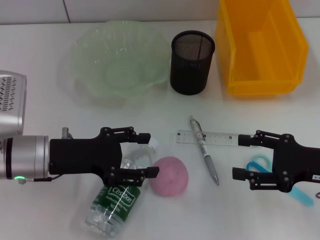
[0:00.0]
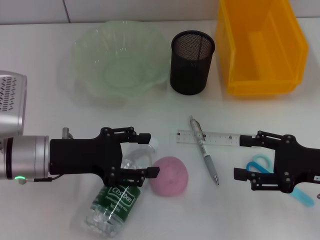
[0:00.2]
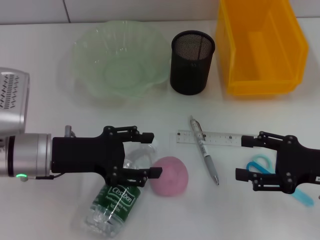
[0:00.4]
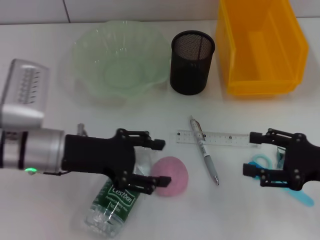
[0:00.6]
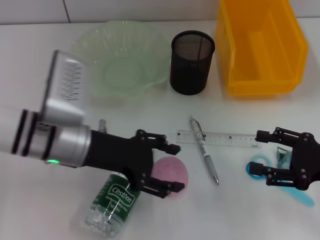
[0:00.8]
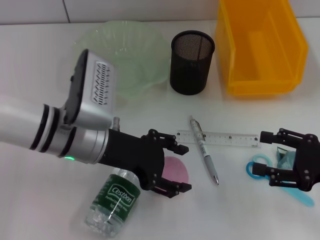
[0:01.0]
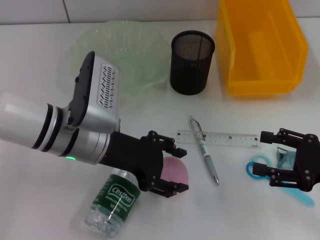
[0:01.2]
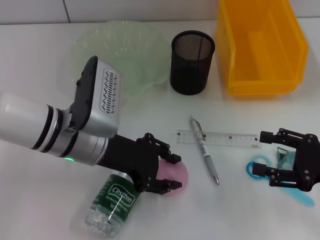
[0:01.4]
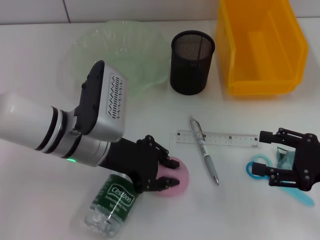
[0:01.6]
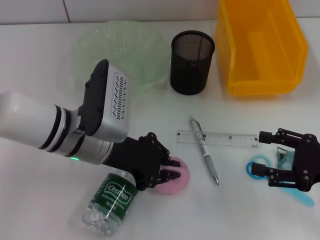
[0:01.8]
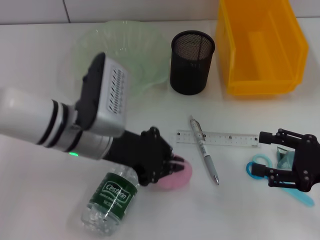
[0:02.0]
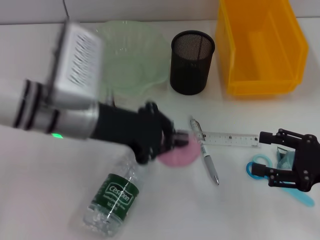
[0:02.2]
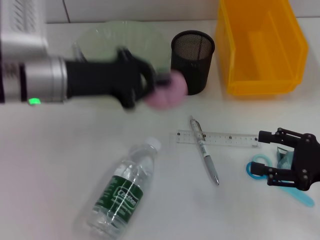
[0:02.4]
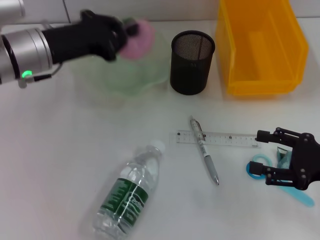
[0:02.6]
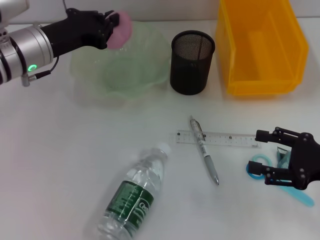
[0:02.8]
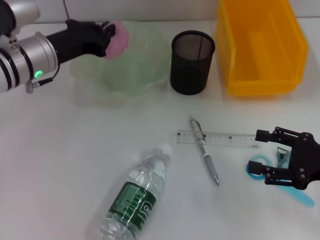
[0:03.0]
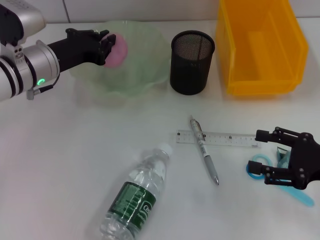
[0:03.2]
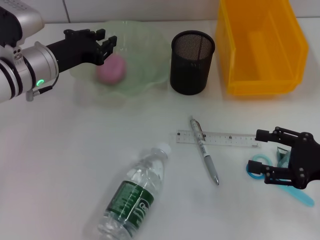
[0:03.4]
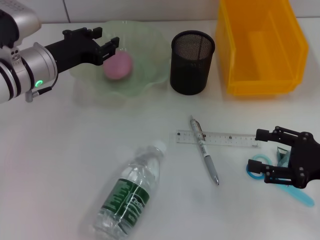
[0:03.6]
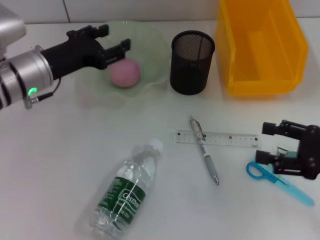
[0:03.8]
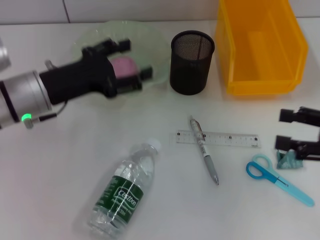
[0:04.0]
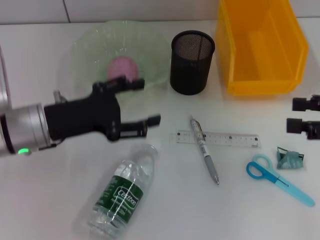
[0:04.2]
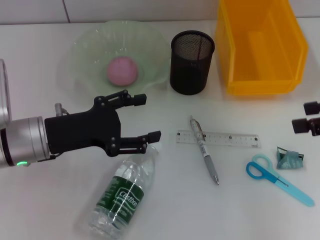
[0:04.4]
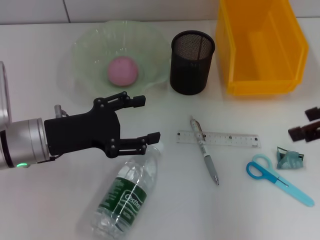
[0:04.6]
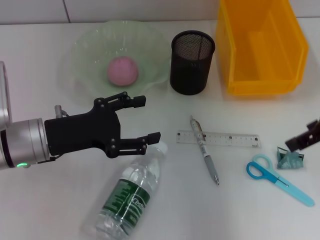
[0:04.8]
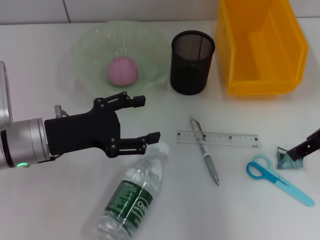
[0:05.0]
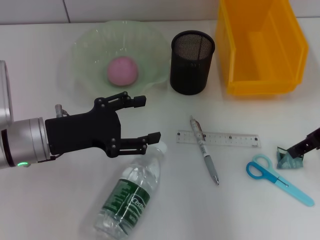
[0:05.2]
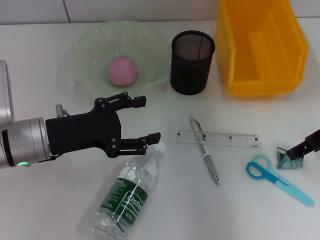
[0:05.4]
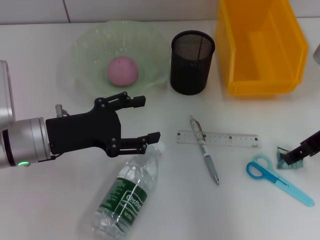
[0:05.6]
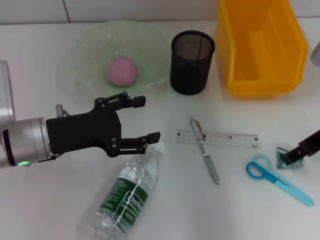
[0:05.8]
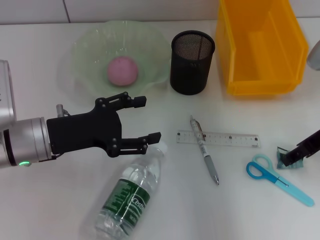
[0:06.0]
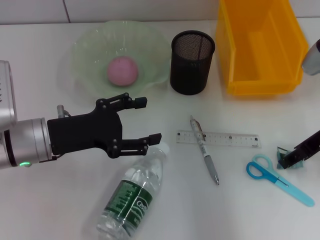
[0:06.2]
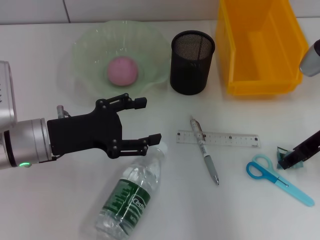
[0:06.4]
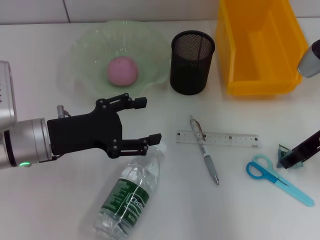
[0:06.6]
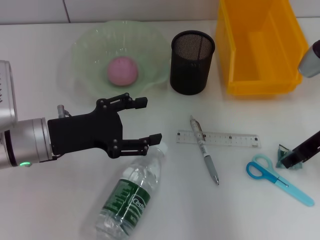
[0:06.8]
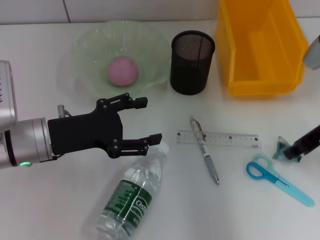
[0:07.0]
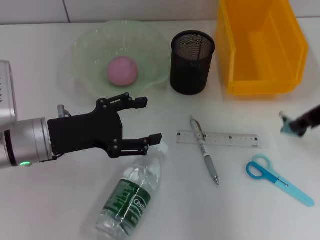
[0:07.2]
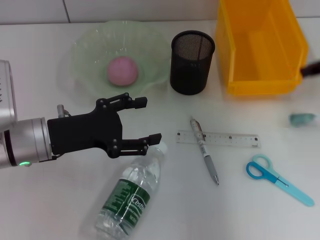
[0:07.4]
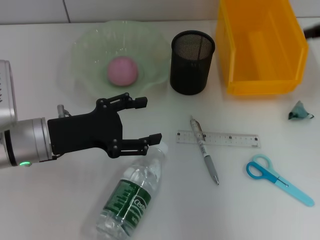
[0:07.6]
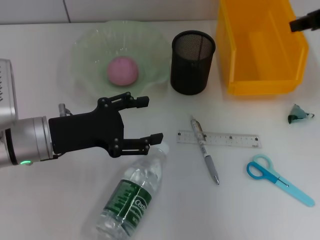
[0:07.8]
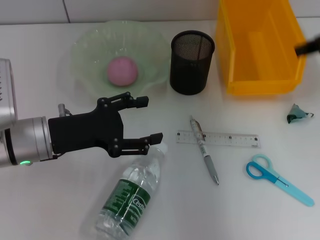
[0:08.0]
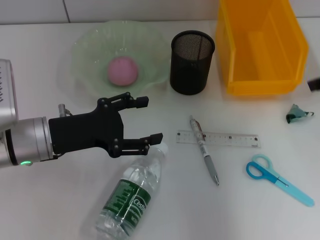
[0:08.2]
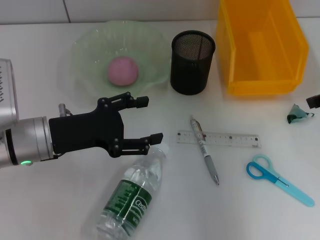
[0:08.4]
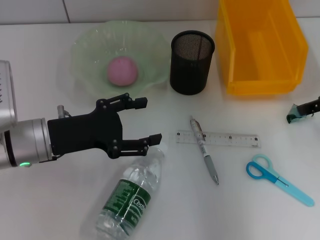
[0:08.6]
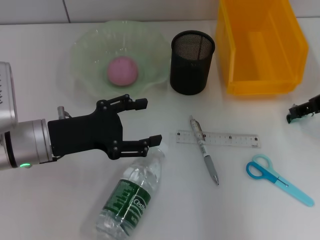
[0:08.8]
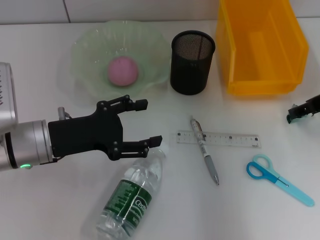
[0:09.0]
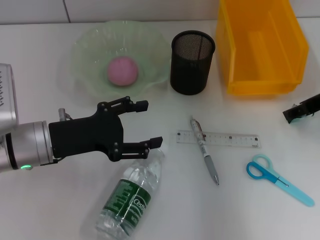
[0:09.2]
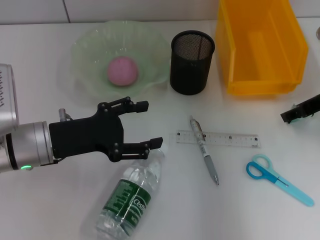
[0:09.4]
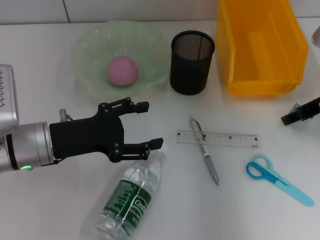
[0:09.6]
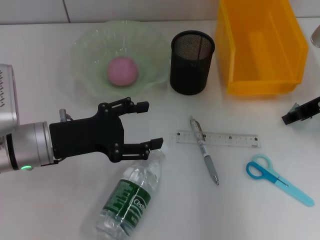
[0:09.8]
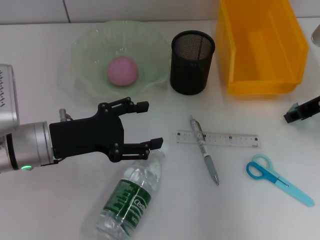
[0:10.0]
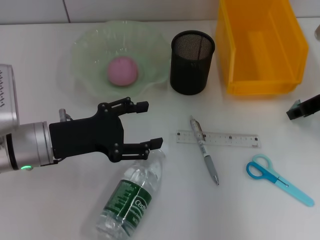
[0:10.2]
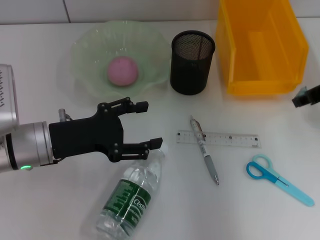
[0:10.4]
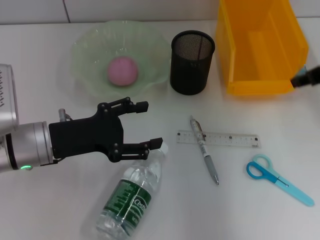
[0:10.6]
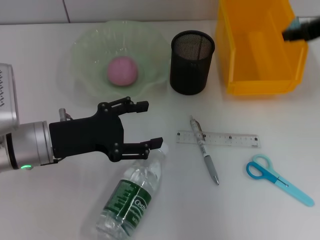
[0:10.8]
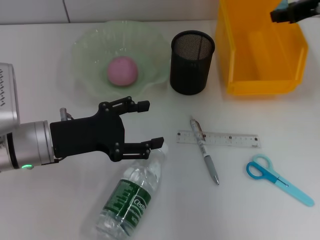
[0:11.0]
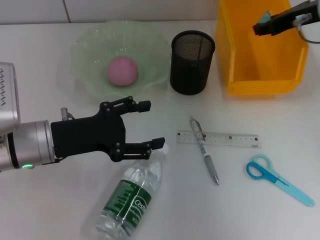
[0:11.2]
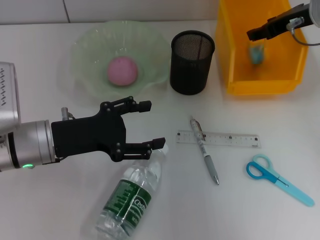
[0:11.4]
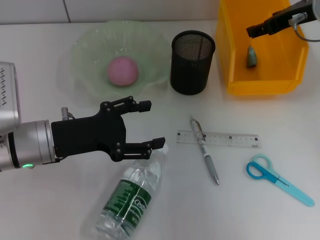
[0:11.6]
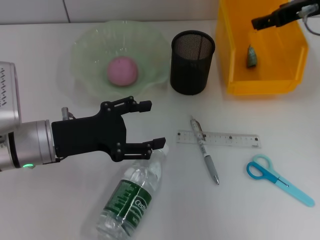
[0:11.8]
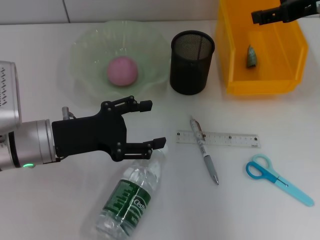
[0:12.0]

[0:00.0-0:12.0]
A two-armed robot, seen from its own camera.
Step, 0:00.0 to 0:01.8: Grab the peach with the left hand.
Step, 0:02.0 to 0:03.4: Place the peach into the fruit bowl with the left hand.
Step, 0:03.6 to 0:10.0: Grab the plastic with the right hand.
Step, 0:10.2 to 0:11.6: Place the plastic into the trash can with the right hand.
0:00.0 to 0:01.6: The left gripper moves to the right, some 10 cm.
0:01.6 to 0:03.0: The left gripper moves forward and to the left, roughly 10 cm, and closes.
0:03.0 to 0:04.4: The right gripper heads upward, covering some 15 cm; the left gripper travels backward by roughly 10 cm, and opens up.
0:04.4 to 0:06.0: The right gripper heads to the left and downward, covering roughly 10 cm.
0:06.0 to 0:07.6: The right gripper moves upward, approximately 10 cm, and closes.
0:07.6 to 0:09.0: The right gripper heads downward, covering some 10 cm, and opens up.
0:09.0 to 0:10.4: The right gripper closes.
0:10.4 to 0:12.0: The right gripper moves up and down over approximately 10 cm, changing direction 2 times, and opens.

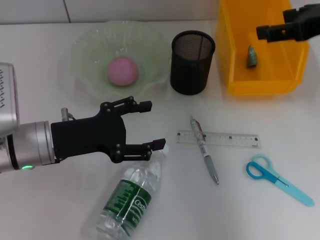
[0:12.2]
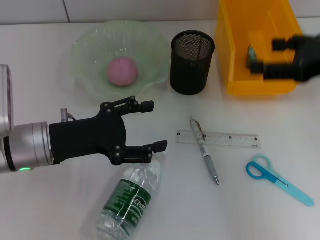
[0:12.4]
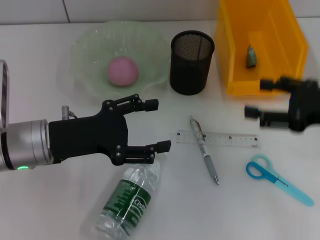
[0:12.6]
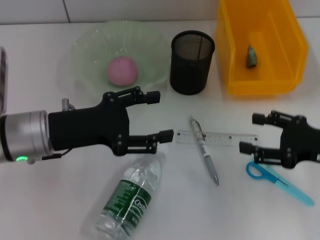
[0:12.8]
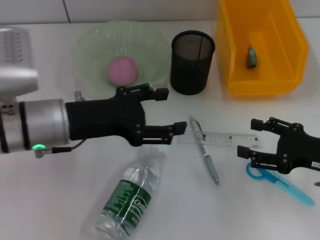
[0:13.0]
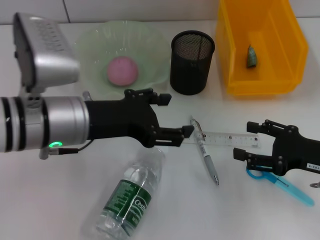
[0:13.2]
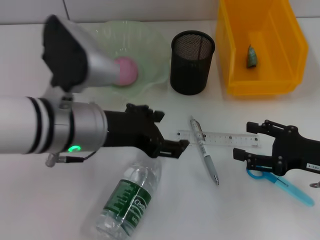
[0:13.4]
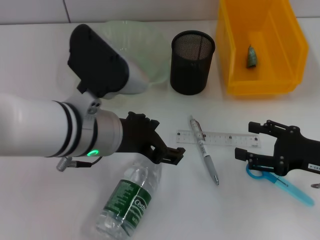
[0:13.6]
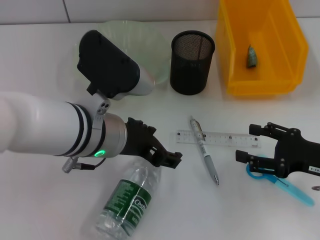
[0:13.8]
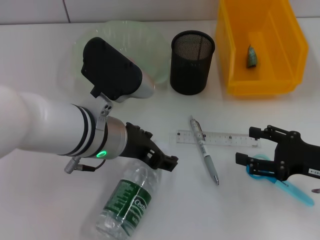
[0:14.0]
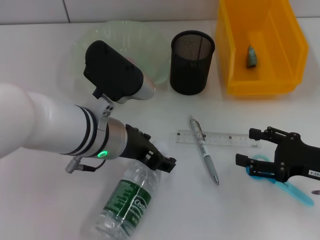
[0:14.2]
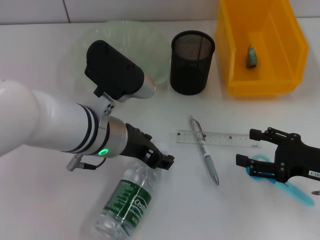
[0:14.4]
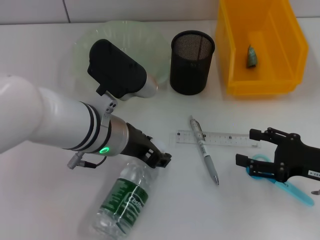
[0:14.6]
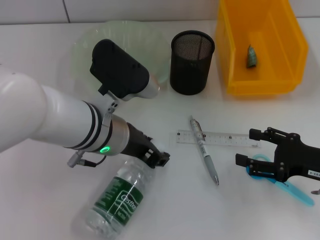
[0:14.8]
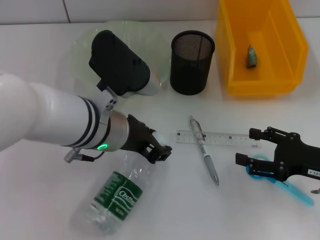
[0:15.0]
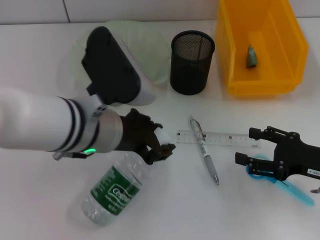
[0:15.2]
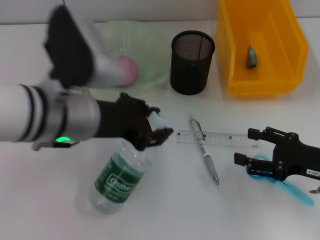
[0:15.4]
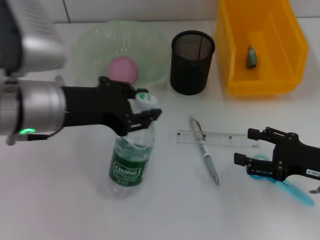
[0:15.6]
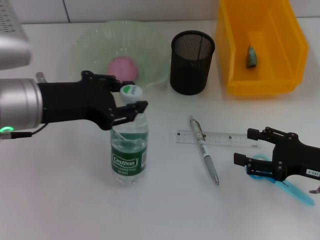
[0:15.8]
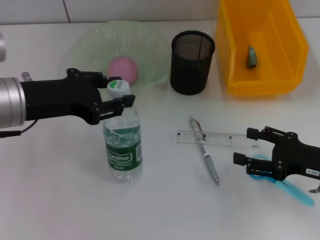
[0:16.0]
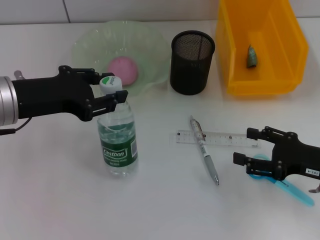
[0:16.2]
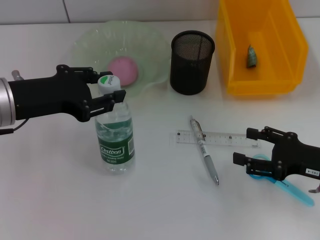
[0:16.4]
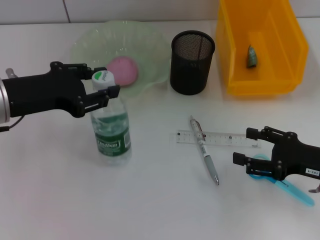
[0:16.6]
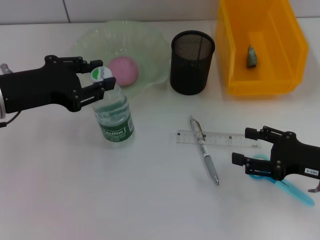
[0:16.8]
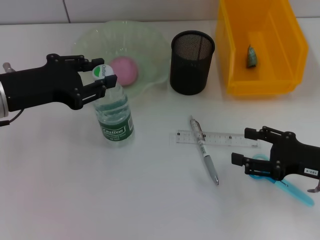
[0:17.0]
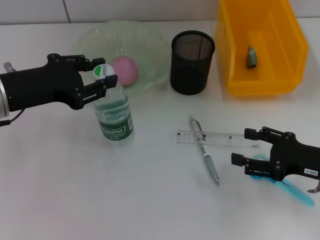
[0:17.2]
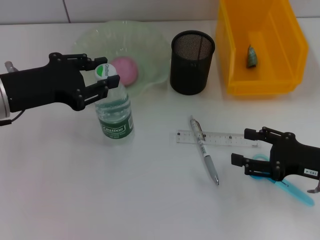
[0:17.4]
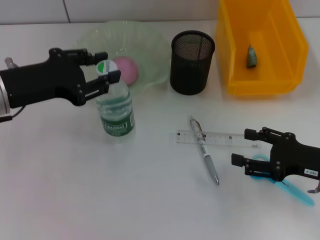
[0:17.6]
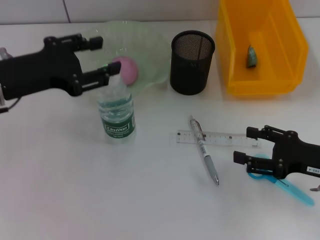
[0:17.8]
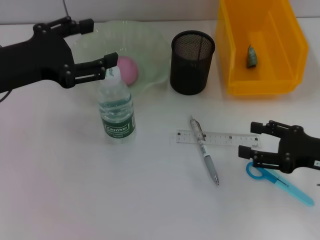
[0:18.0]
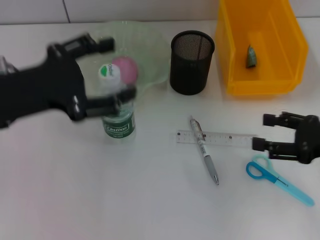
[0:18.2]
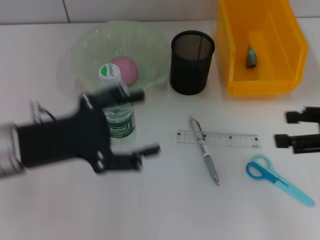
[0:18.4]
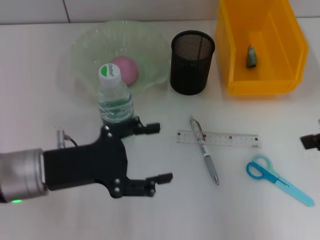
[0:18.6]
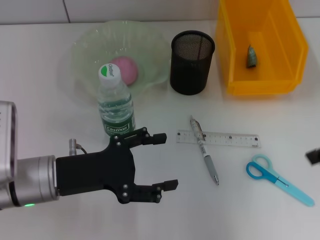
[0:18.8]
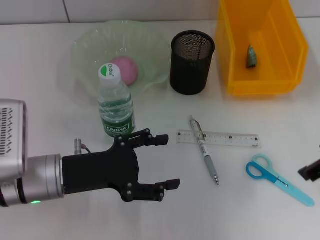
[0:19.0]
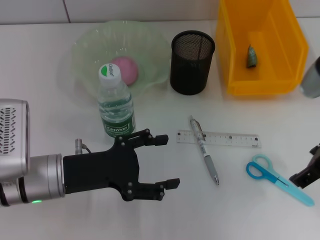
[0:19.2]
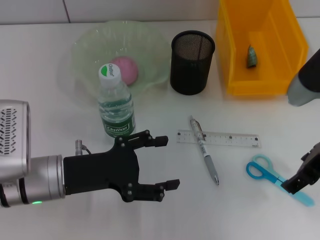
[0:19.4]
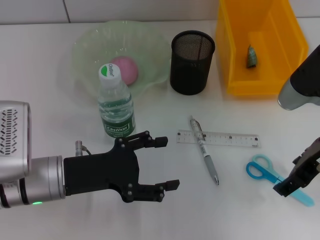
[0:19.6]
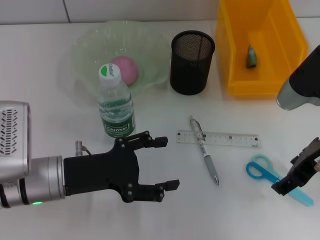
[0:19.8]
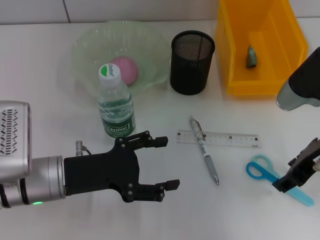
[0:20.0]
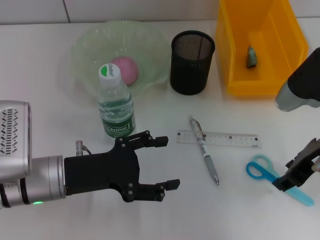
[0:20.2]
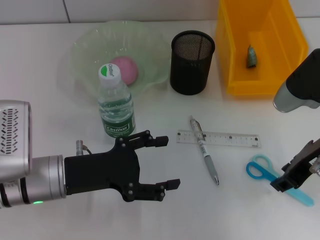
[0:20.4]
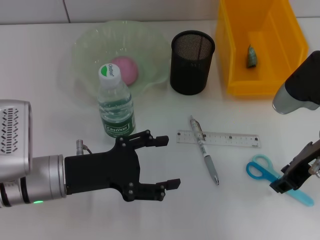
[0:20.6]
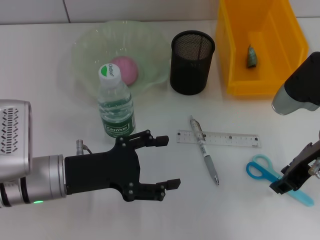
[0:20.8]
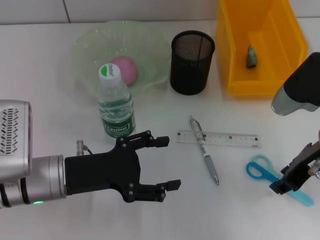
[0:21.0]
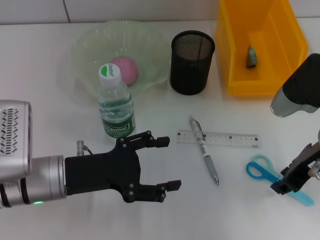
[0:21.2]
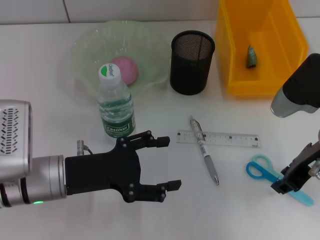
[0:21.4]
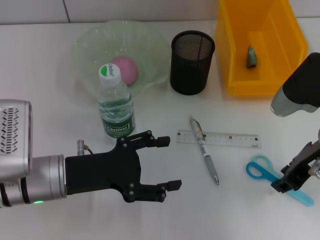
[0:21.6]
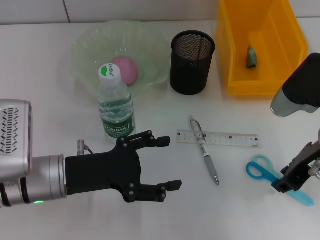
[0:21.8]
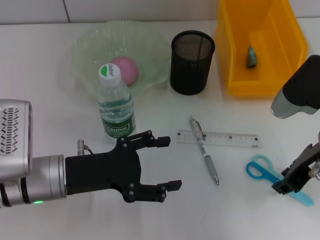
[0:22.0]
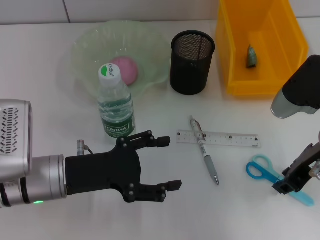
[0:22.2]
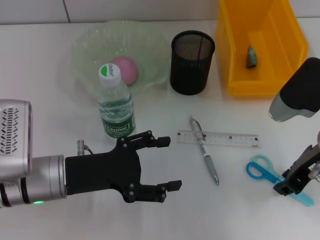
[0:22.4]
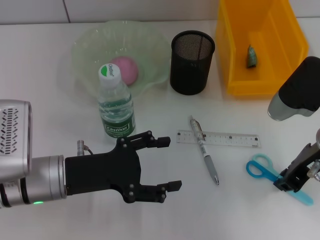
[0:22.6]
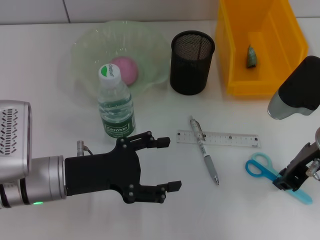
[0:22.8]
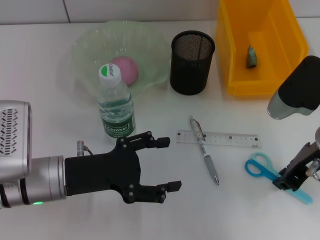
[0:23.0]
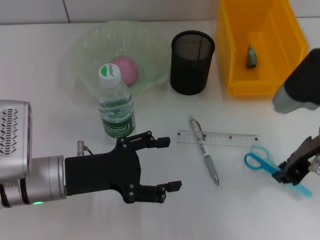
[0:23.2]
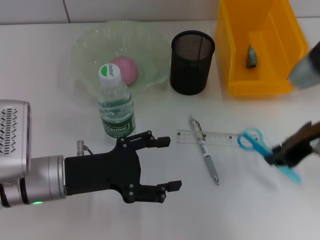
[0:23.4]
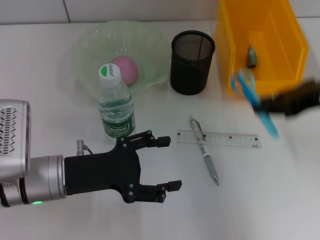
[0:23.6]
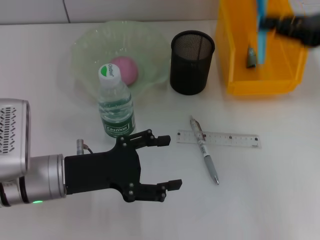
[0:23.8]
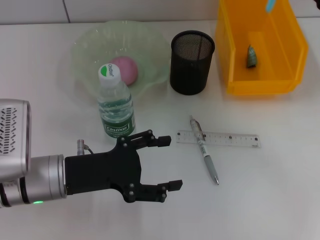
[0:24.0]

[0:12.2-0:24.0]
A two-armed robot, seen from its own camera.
Step, 0:12.2 to 0:14.4: Grab the water bottle with the left hand.
Step, 0:14.8 to 0:17.6: Place the water bottle on the table with the left hand.
Step, 0:17.8 to 0:22.8: Grab the blue scissors with the right hand.
0:12.2 to 0:13.6: The left gripper shifts approximately 15 cm to the right and upward. Meanwhile the right gripper goes approximately 20 cm downward and backward.
0:13.6 to 0:15.2: The left gripper closes.
0:15.2 to 0:16.6: The left gripper travels to the left by about 15 cm.
0:16.6 to 0:18.2: The right gripper goes some 5 cm upward. Meanwhile the left gripper opens.
0:18.2 to 0:19.6: The left gripper travels downward by about 10 cm. The right gripper travels to the left and upward by approximately 10 cm.
0:19.6 to 0:21.0: The right gripper closes its fingers.
0:21.0 to 0:22.6: Both grippers stay about where they are.
0:22.6 to 0:24.0: The right gripper heads to the right, covering approximately 10 cm.
